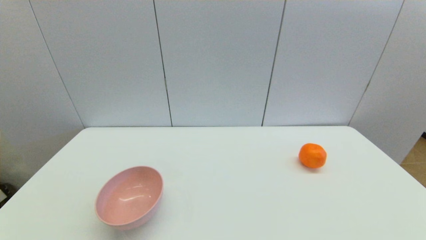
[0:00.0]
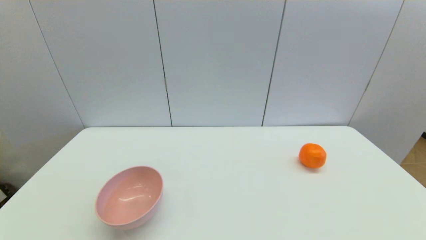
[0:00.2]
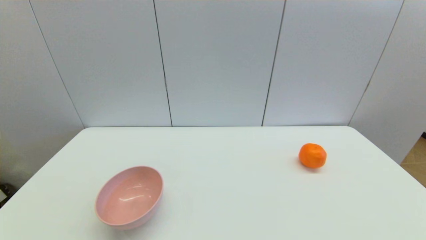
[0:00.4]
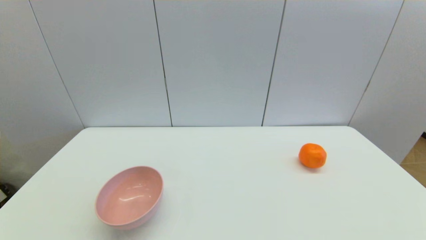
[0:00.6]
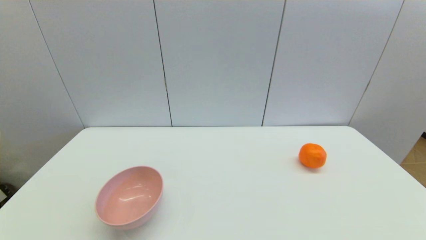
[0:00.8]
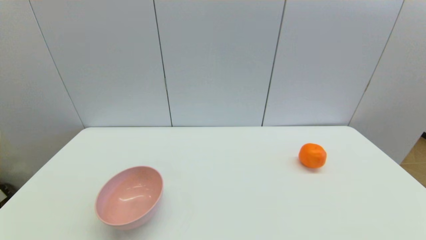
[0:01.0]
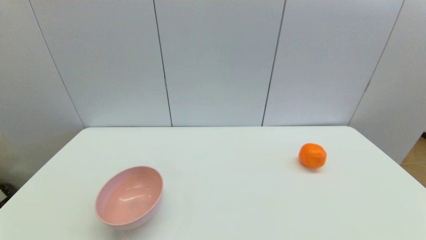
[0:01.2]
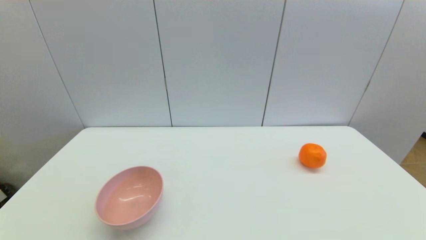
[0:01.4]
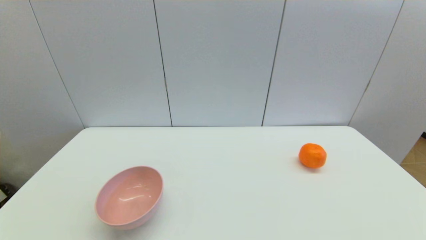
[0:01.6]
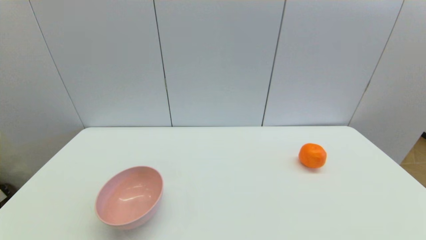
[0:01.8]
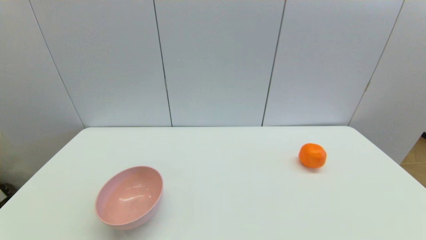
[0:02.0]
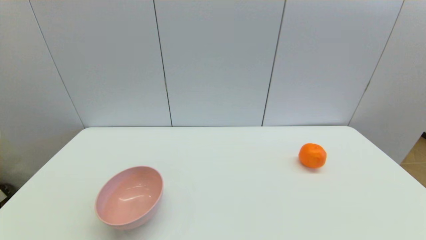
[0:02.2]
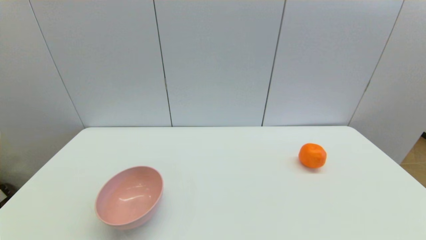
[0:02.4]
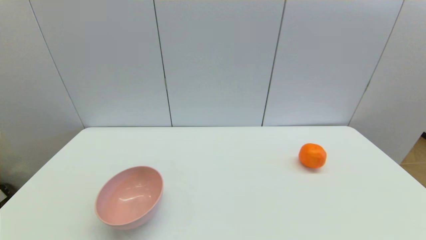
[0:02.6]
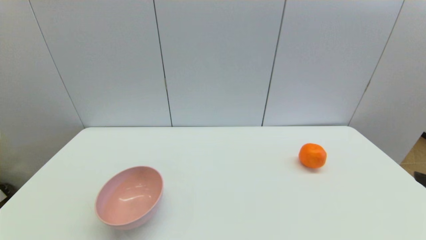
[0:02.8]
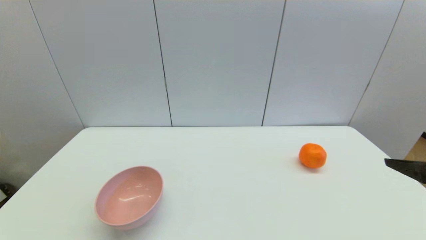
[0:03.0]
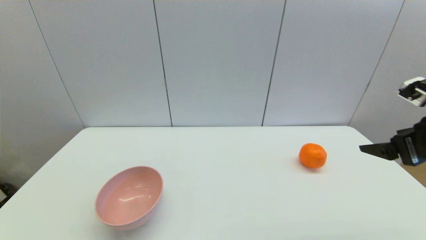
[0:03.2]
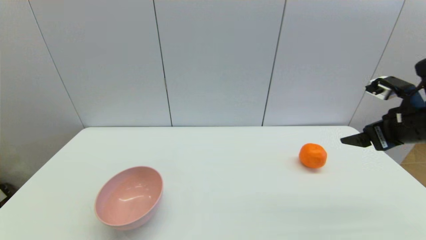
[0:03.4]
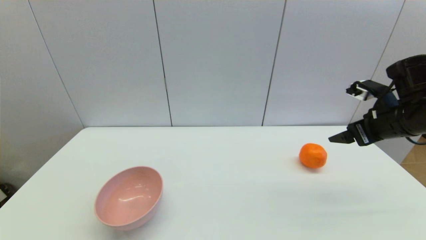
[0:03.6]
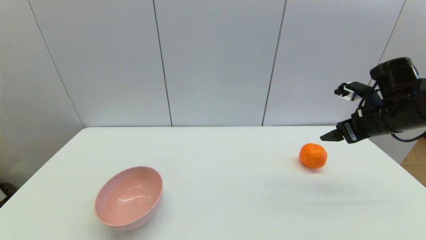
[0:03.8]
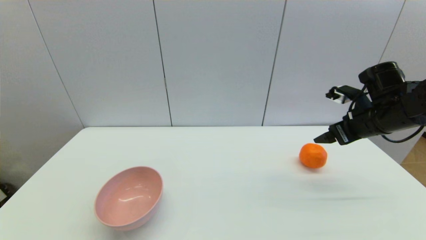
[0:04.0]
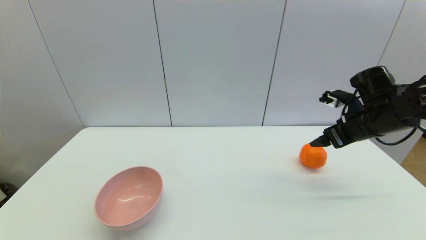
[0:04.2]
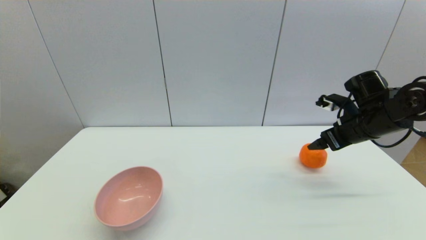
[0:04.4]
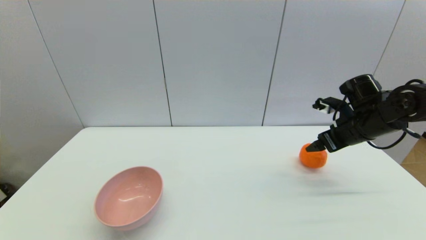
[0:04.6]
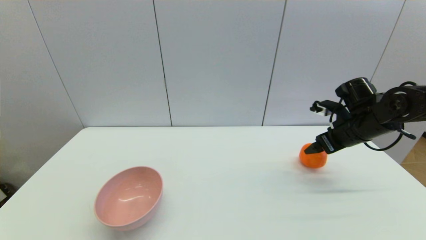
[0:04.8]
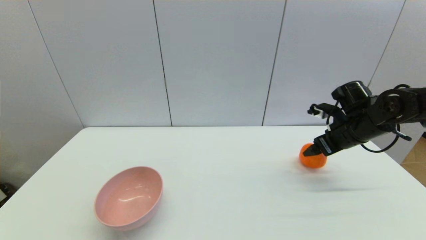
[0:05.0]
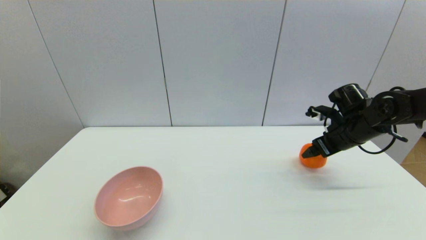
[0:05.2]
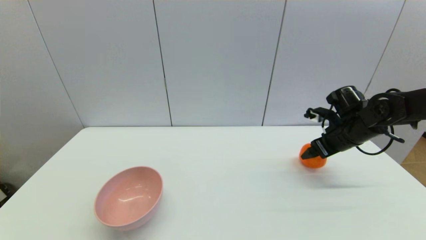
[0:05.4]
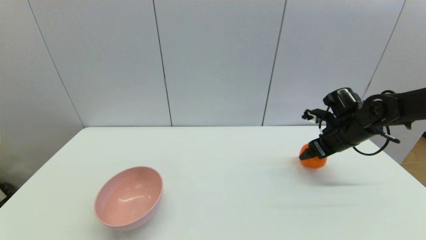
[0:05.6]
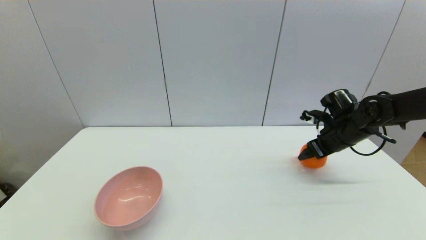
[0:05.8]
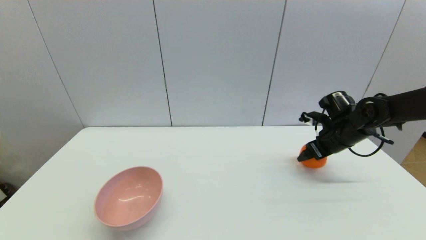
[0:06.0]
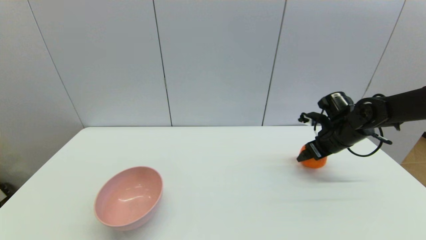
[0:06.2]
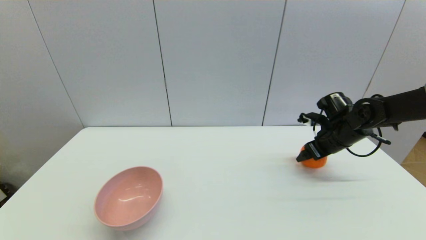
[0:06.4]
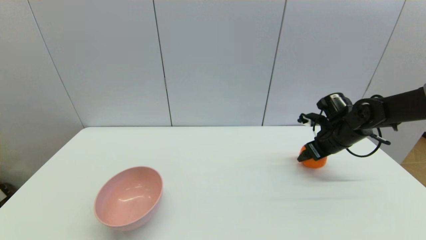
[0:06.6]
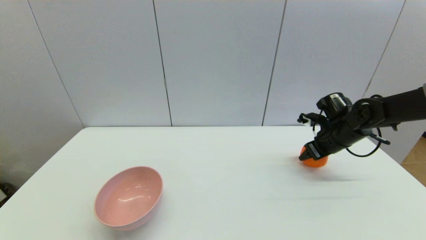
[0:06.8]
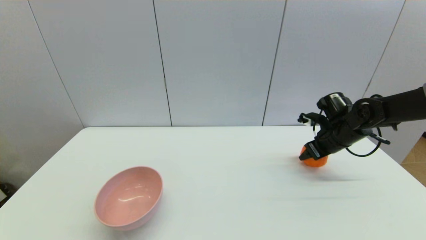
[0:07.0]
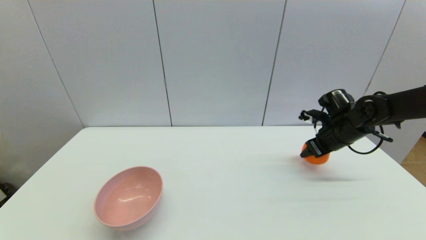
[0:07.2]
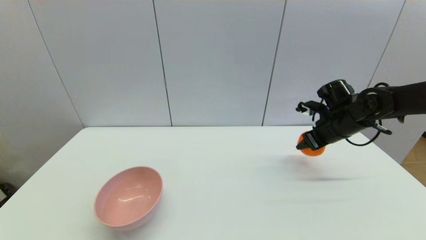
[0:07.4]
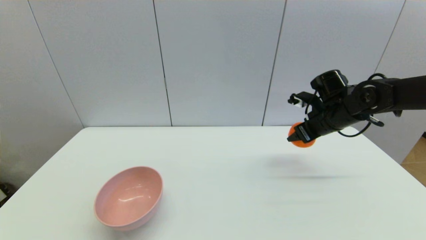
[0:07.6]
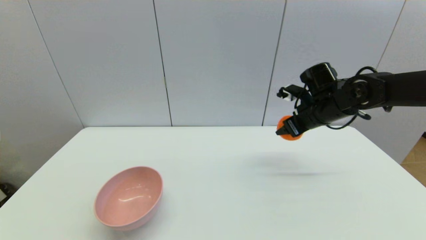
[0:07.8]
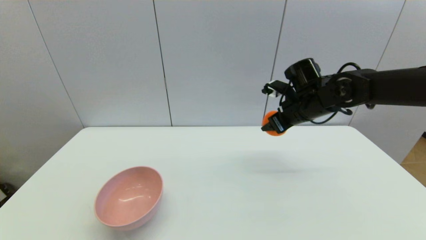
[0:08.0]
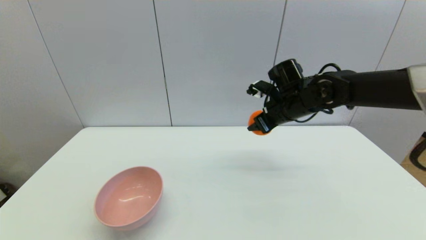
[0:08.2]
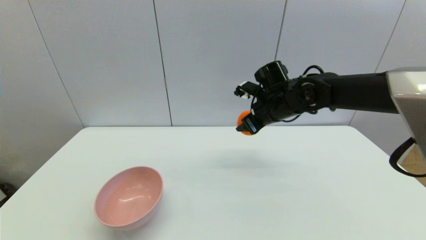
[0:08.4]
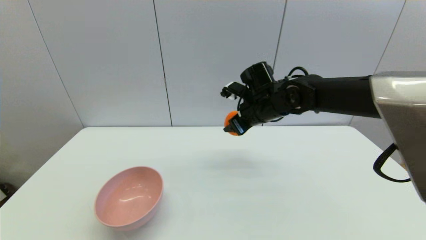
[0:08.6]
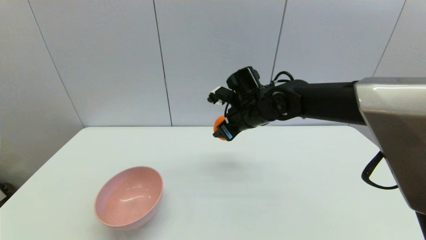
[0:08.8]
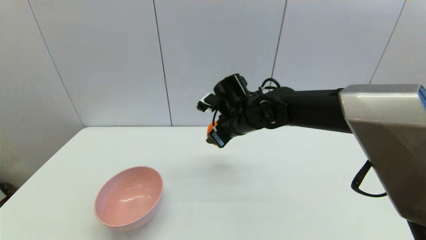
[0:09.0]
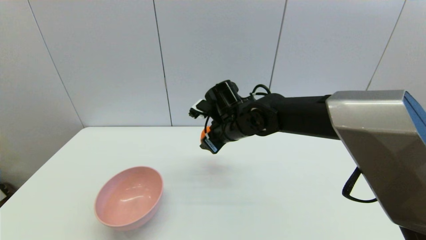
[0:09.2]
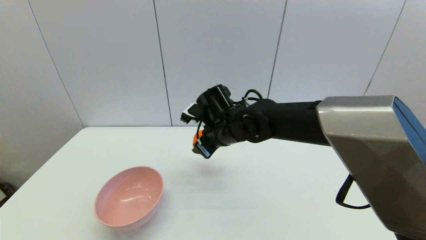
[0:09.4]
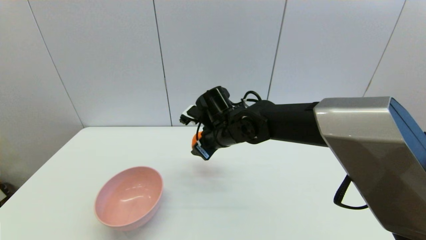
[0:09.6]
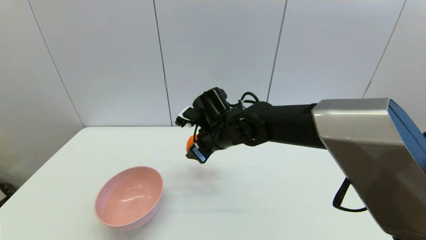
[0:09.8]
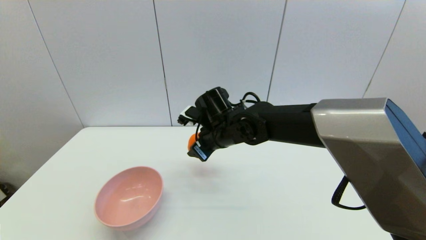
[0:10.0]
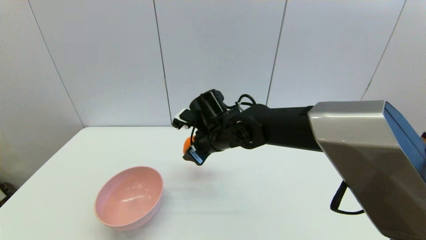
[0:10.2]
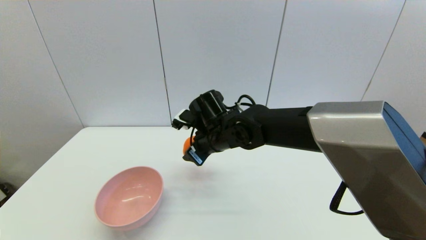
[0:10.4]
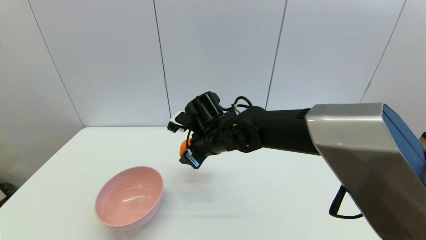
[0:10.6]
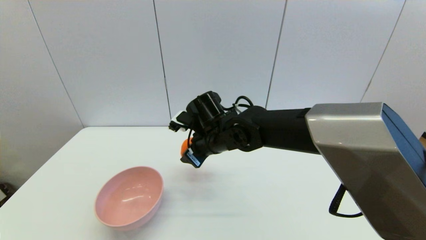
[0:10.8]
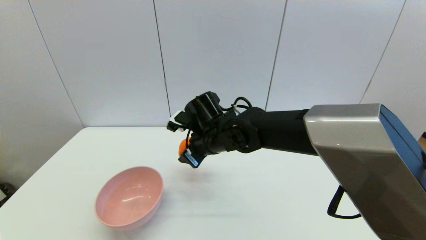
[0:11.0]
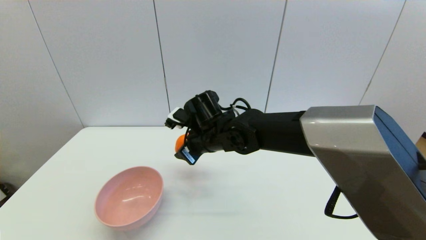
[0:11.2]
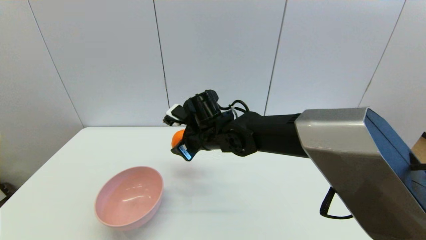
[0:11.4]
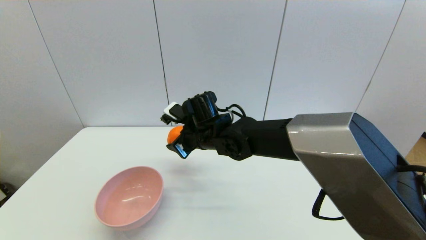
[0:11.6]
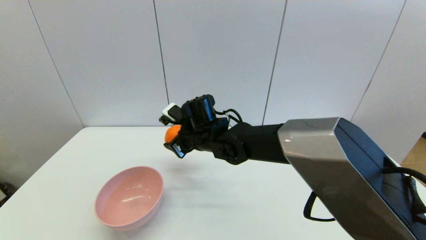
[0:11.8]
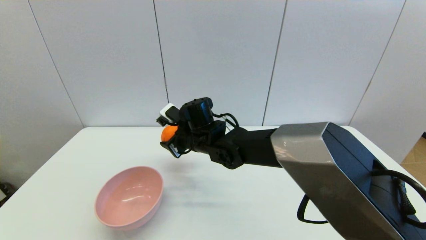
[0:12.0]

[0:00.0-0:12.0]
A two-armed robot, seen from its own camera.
Step, 0:02.8 to 0:06.8: Grasp the orange with right gripper.
0:00.0 to 0:01.6: Both grippers stay put.
0:01.6 to 0:03.0: The right gripper goes roughly 25 cm forward and upward.
0:03.0 to 0:04.4: The right gripper shifts approximately 20 cm forward.
0:04.4 to 0:06.0: The right gripper moves downward, about 5 cm.
0:06.0 to 0:07.6: The right gripper heads upward, covering roughly 5 cm, and closes up.
0:07.6 to 0:09.0: The right gripper is displaced to the left by approximately 20 cm.
0:09.0 to 0:10.4: The right gripper ends up some 5 cm from where it was.
0:10.4 to 0:12.0: The right gripper shifts by approximately 5 cm.

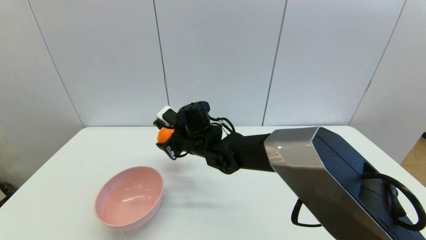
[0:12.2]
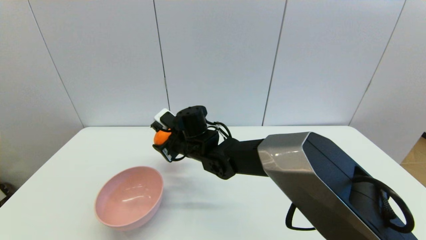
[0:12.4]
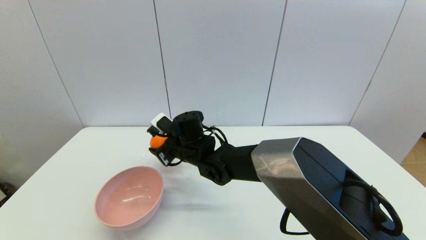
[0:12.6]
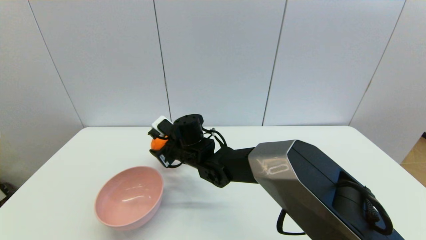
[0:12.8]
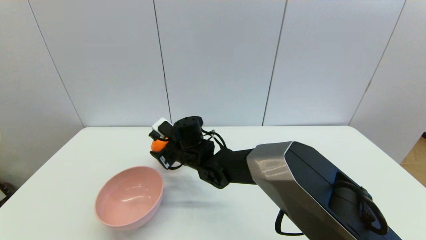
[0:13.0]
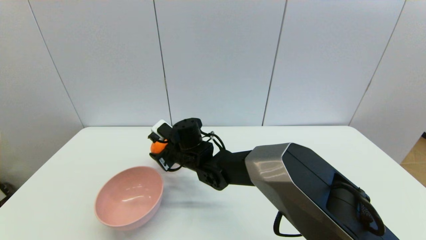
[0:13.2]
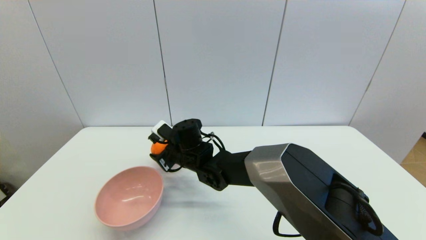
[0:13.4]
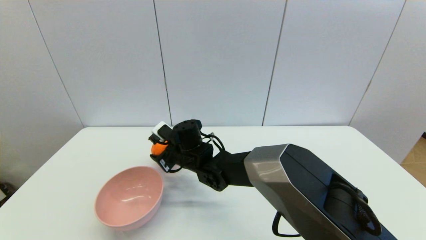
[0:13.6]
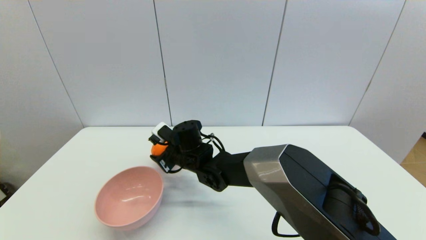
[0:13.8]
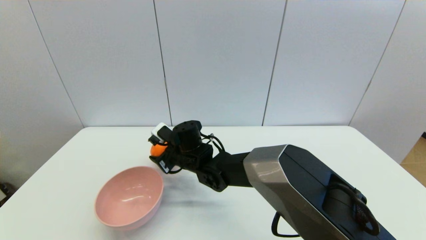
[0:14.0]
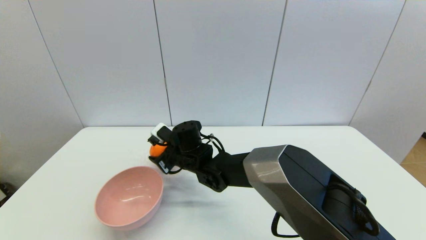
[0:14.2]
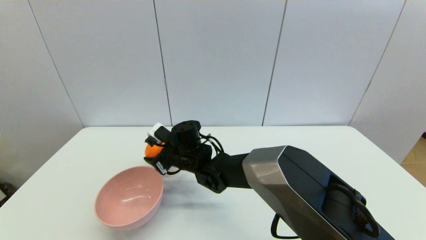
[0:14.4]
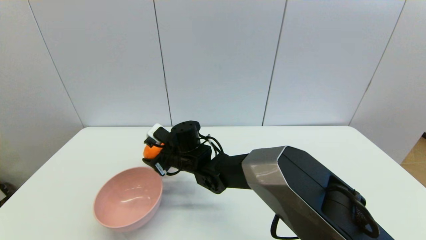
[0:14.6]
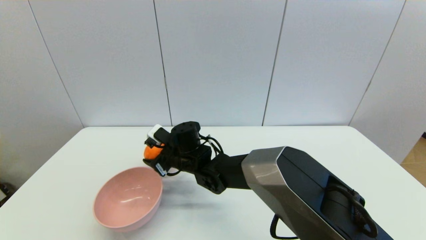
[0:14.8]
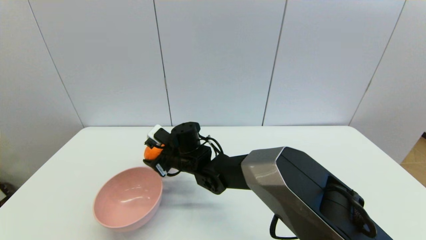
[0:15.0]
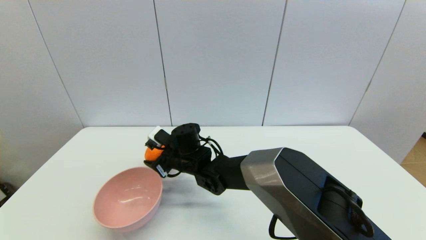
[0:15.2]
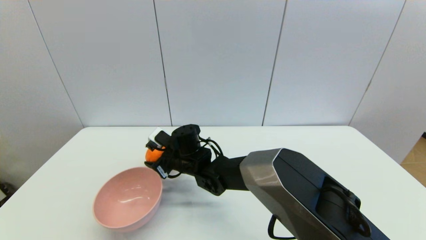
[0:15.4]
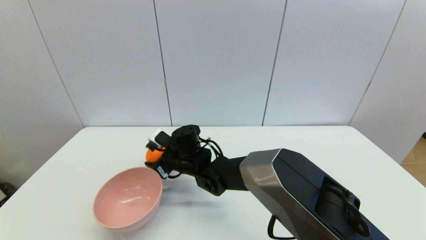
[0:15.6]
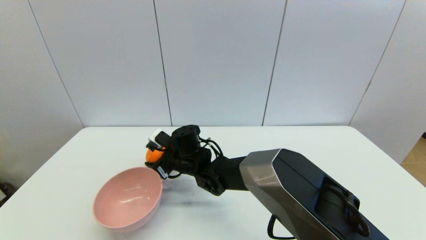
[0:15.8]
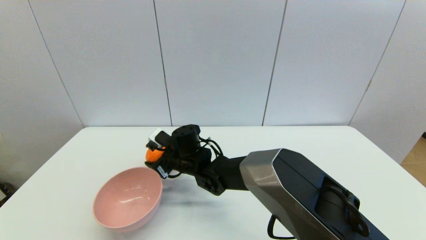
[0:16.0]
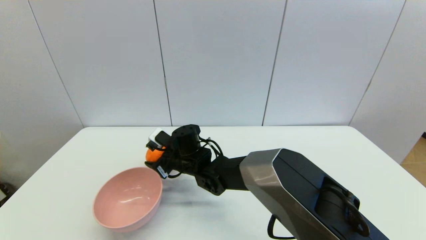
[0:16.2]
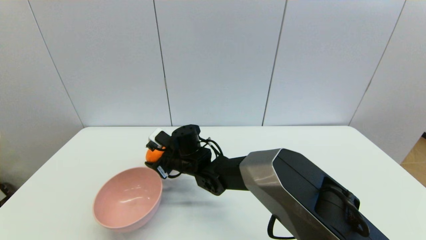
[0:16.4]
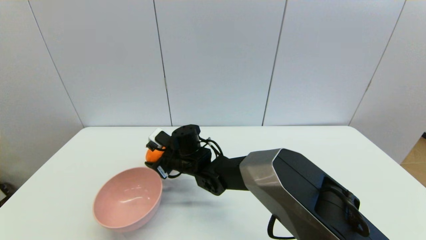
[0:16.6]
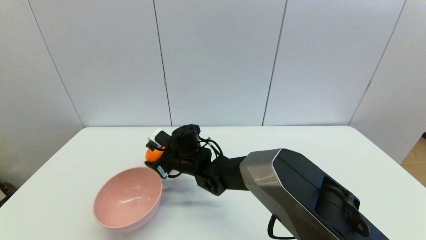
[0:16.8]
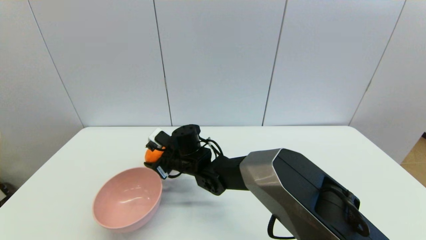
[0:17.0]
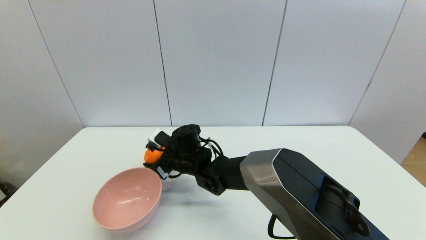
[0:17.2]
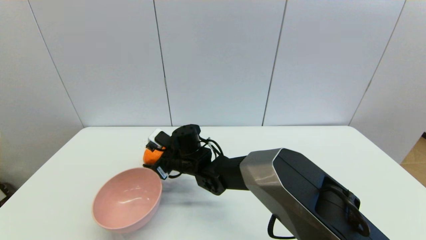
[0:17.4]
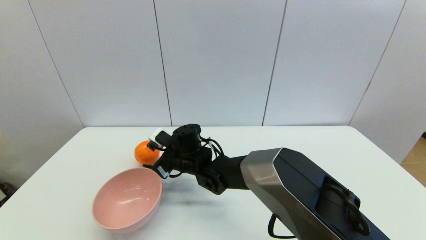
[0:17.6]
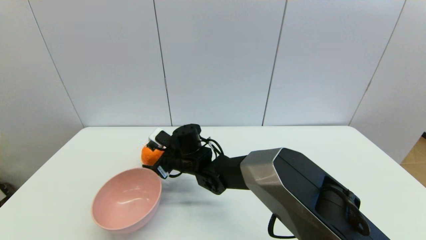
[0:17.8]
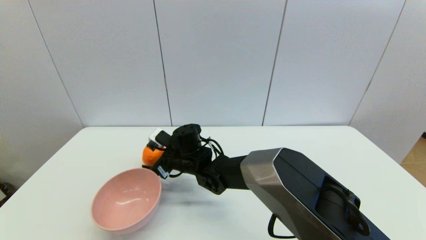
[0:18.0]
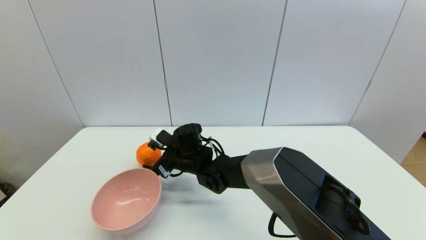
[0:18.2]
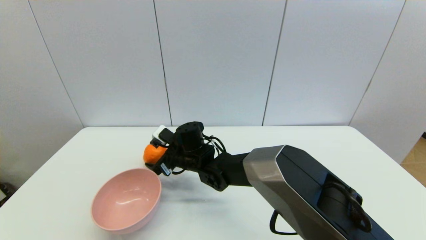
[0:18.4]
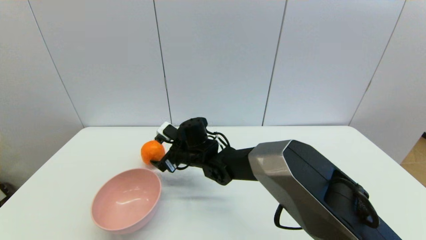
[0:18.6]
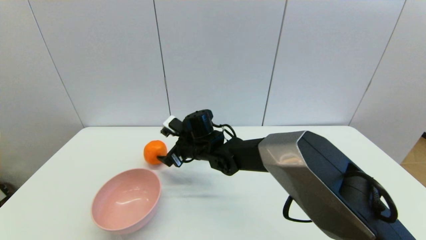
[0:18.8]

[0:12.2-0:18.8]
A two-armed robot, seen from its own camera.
Step, 0:12.2 to 0:18.0: Place the orange on the table with right gripper.
0:12.2 to 0:13.8: The right gripper ends up approximately 5 cm from where it was.
0:13.8 to 0:15.4: The grippers stay close to where they were, moving slightly.
0:15.4 to 0:17.2: Neither gripper changes place.
0:17.2 to 0:18.8: The right gripper moves approximately 5 cm, and opens.
